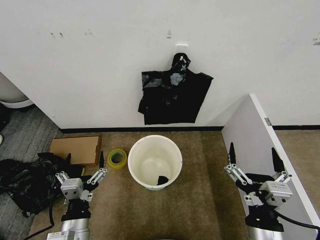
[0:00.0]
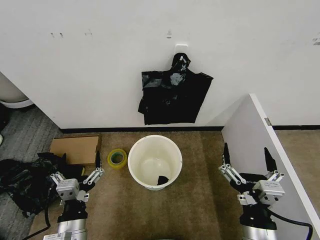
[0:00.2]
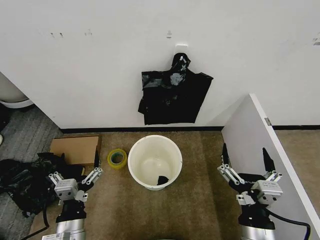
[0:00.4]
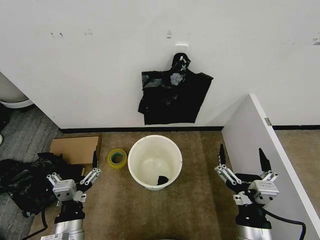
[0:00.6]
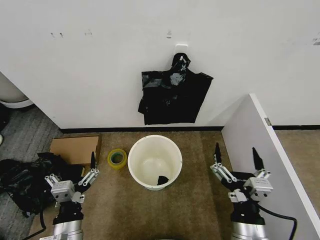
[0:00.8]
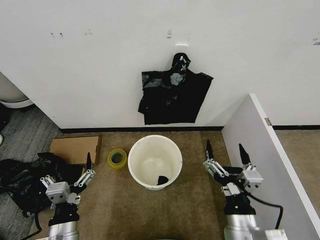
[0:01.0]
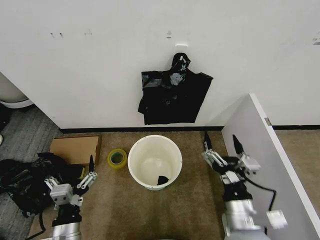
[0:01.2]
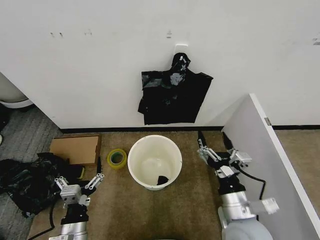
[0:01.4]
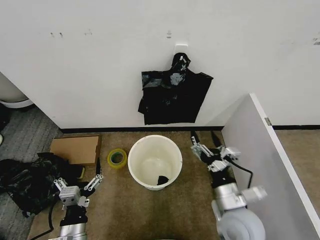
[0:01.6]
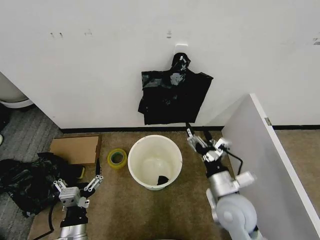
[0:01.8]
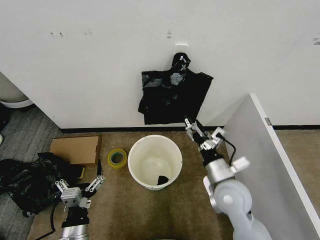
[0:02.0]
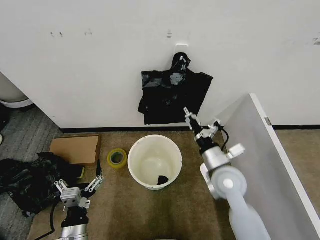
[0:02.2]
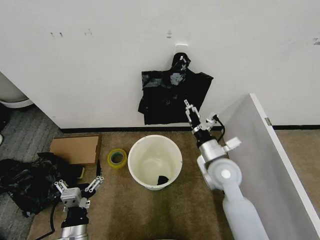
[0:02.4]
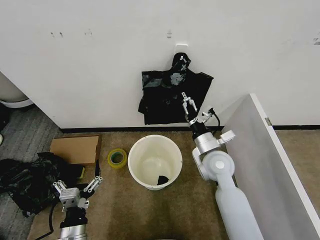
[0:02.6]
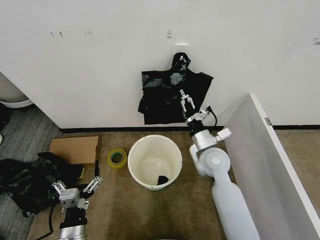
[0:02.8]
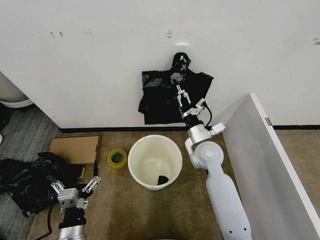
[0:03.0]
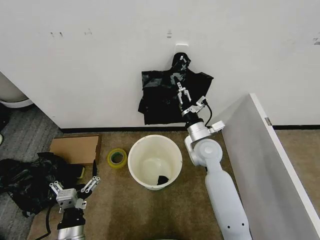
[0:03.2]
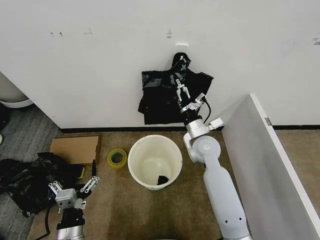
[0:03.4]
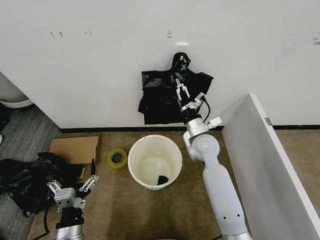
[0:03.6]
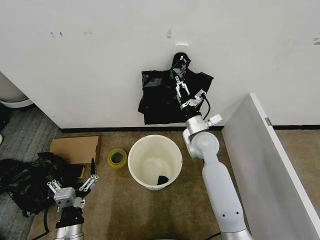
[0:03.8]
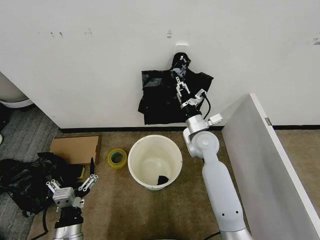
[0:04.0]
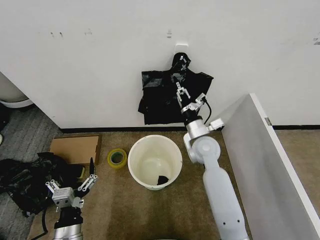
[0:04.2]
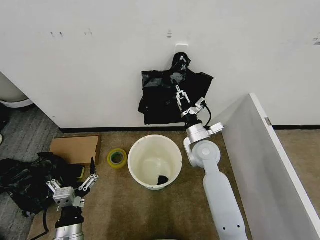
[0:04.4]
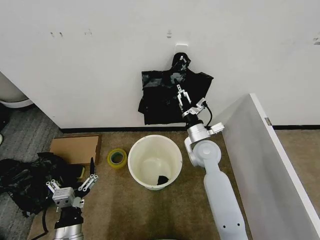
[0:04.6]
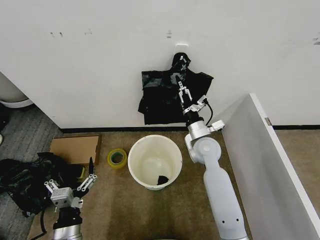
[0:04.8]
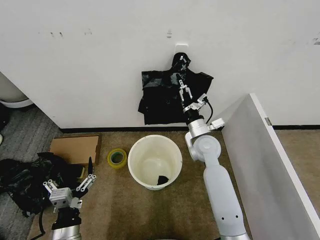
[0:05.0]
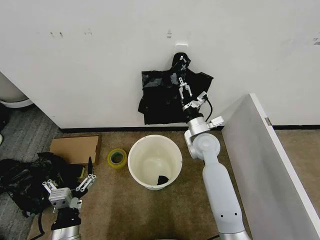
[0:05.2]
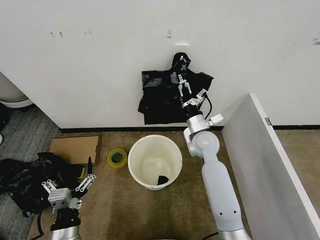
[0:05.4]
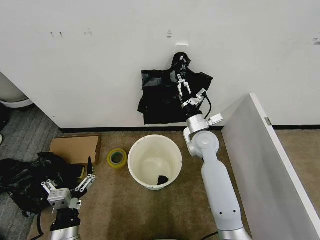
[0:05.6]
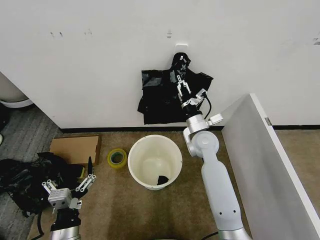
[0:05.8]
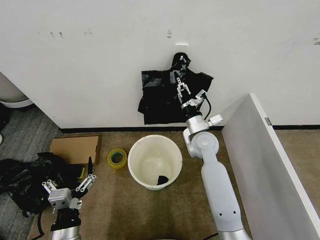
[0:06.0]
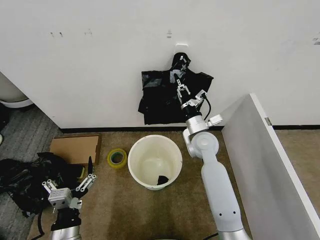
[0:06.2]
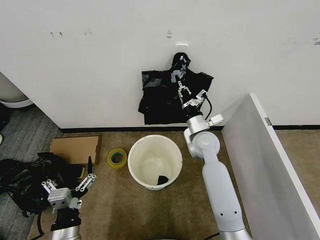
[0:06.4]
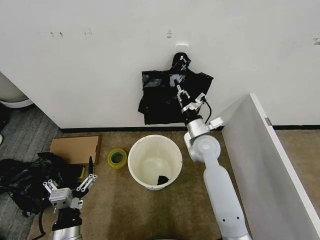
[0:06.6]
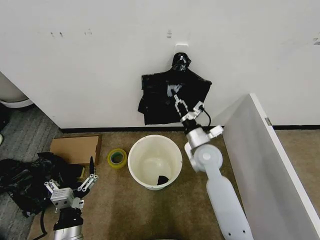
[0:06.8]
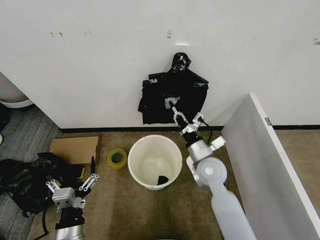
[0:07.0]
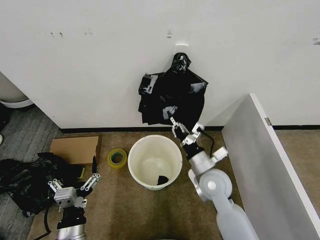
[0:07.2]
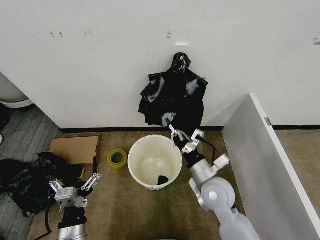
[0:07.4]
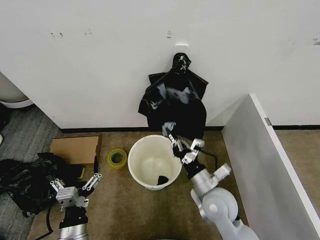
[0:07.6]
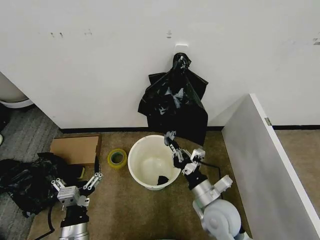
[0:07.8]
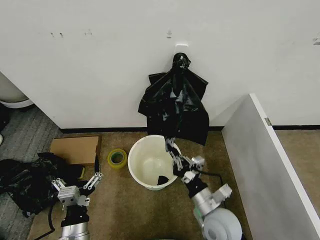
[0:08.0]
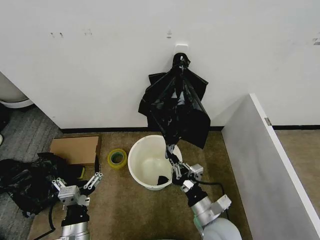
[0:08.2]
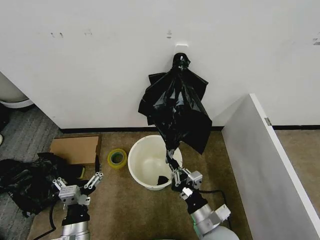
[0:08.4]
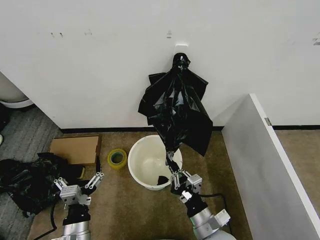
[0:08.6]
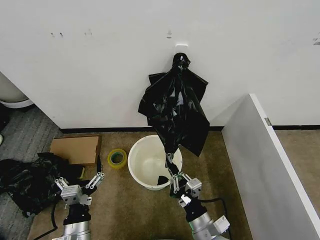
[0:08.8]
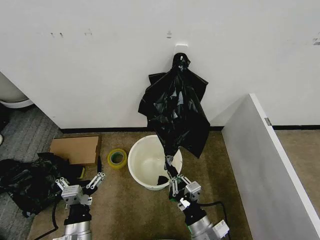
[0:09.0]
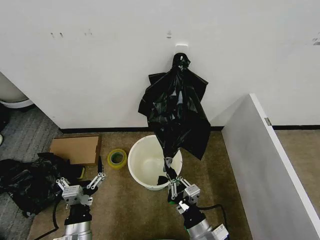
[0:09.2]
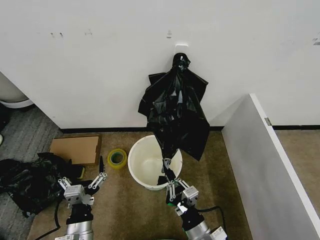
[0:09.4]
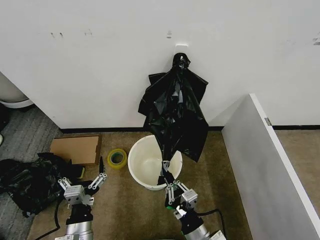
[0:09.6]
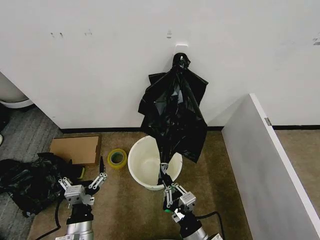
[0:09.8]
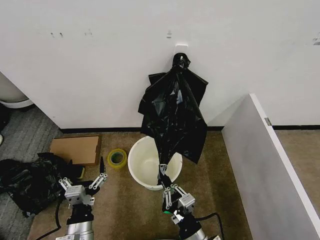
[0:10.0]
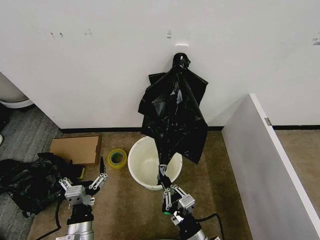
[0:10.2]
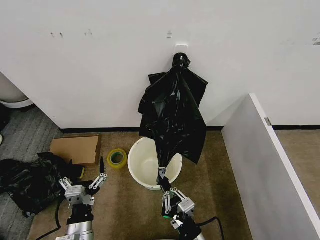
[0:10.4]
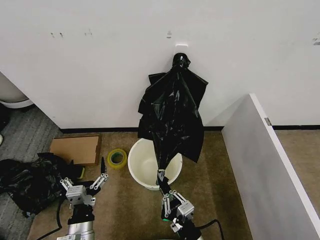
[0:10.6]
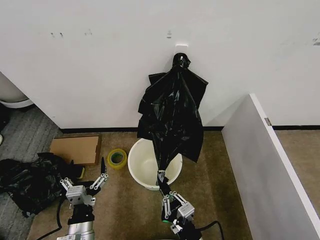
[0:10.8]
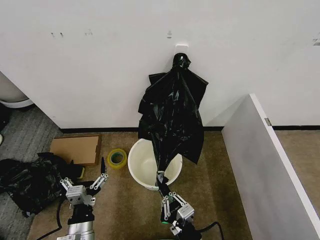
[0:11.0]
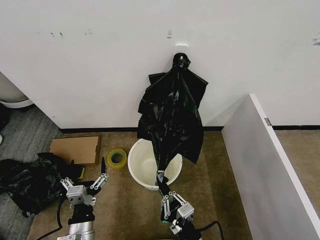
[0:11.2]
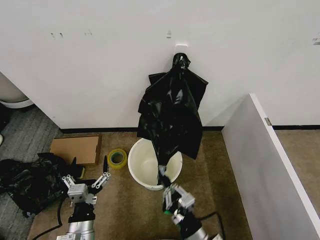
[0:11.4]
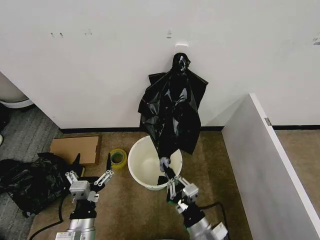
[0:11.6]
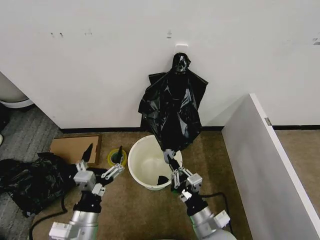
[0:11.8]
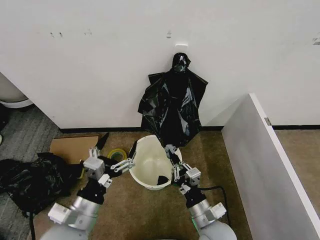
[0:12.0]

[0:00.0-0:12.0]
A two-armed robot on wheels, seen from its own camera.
Task of the whole recording: Place the garbage bag over the trash bin.
0:01.6 to 0:03.0: The right gripper shifts roughly 20 cm forward.
0:03.0 to 0:04.4: The right gripper closes up.
0:04.4 to 0:06.0: The right gripper opens, then closes once more.
0:06.0 to 0:07.6: The right gripper moves backward and downward, approximately 20 cm.
0:07.6 to 0:09.0: The right gripper heads backward and downward, covering about 15 cm.
0:09.0 to 0:10.4: The grippers move only a little.
0:10.4 to 0:12.0: The right gripper shifts approximately 10 cm forward. The left gripper goes roughly 10 cm upward.

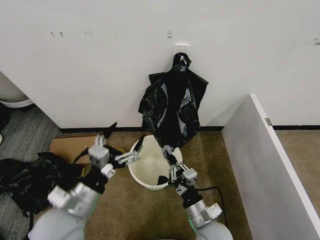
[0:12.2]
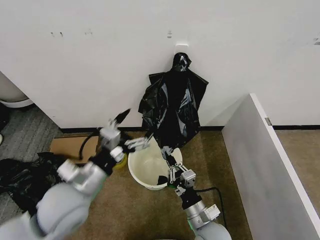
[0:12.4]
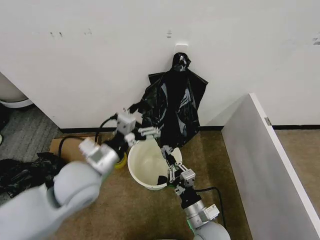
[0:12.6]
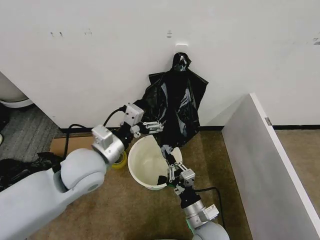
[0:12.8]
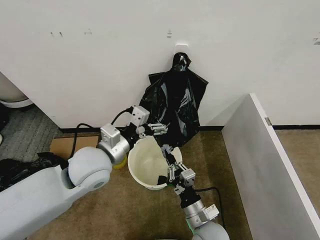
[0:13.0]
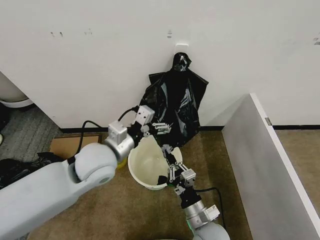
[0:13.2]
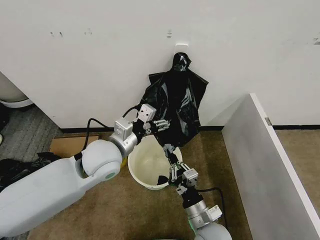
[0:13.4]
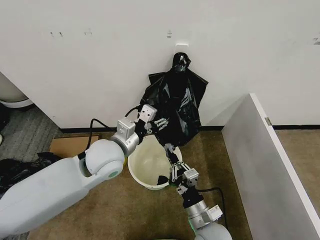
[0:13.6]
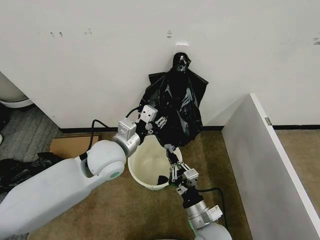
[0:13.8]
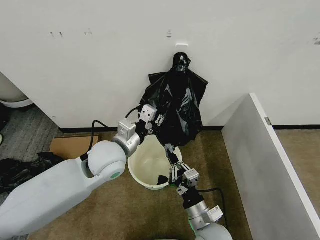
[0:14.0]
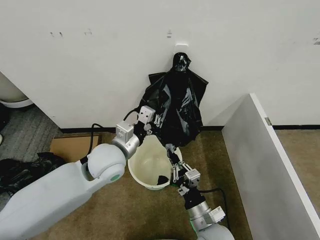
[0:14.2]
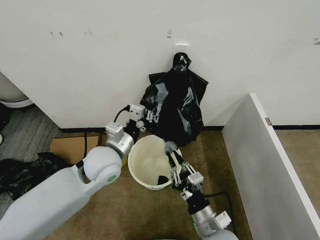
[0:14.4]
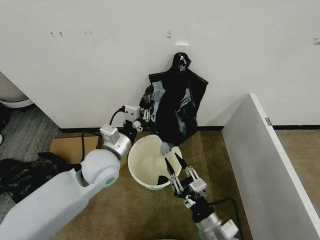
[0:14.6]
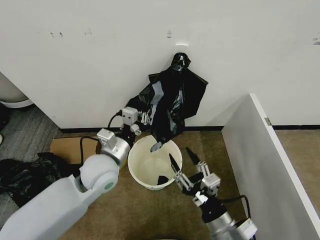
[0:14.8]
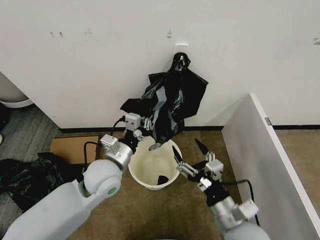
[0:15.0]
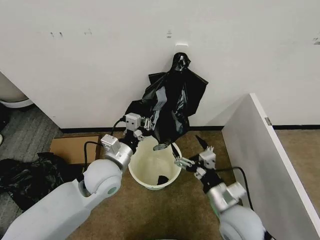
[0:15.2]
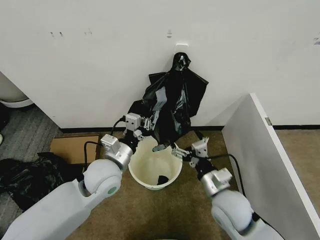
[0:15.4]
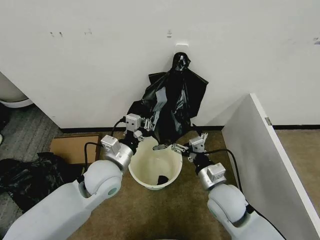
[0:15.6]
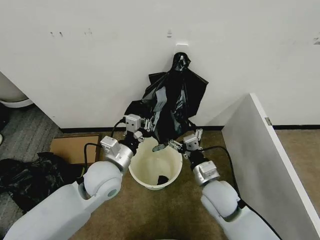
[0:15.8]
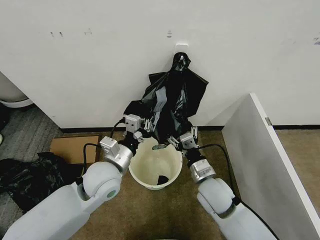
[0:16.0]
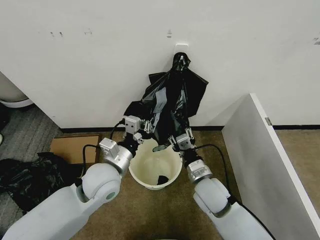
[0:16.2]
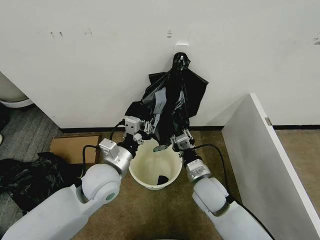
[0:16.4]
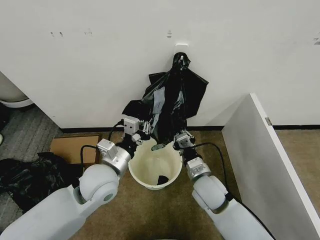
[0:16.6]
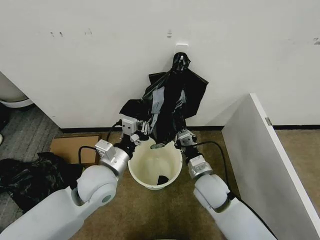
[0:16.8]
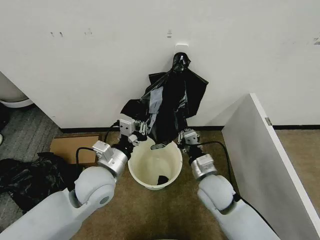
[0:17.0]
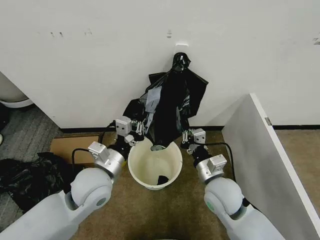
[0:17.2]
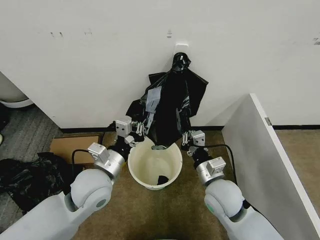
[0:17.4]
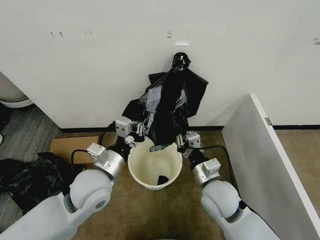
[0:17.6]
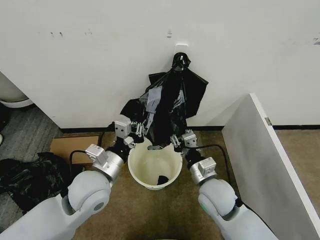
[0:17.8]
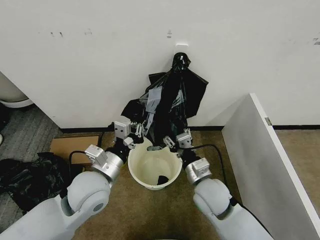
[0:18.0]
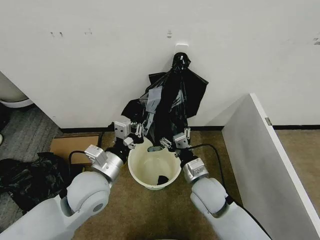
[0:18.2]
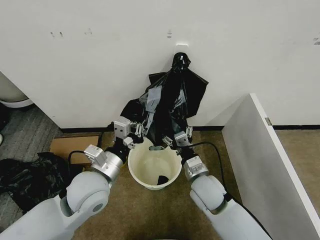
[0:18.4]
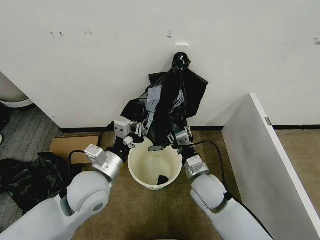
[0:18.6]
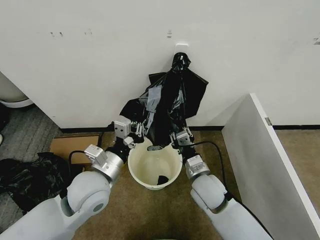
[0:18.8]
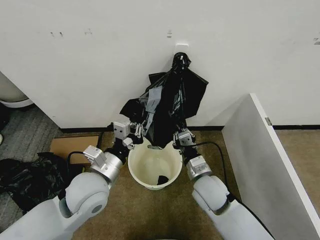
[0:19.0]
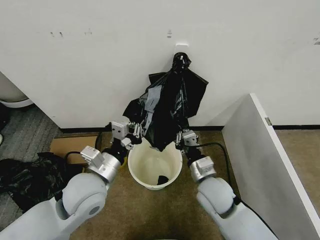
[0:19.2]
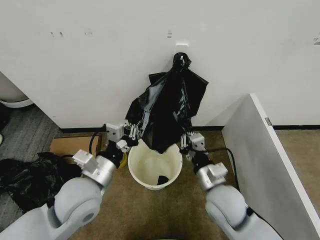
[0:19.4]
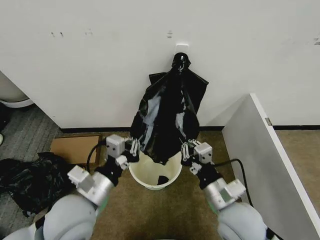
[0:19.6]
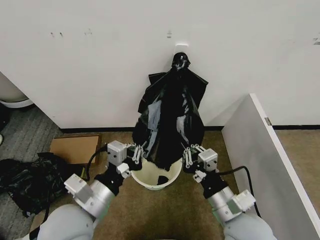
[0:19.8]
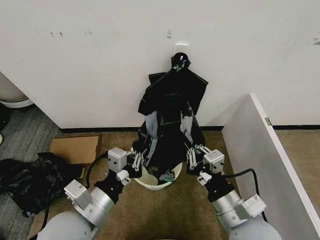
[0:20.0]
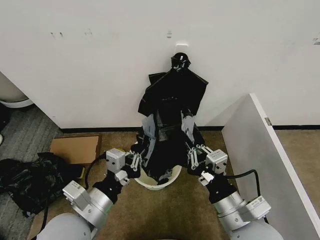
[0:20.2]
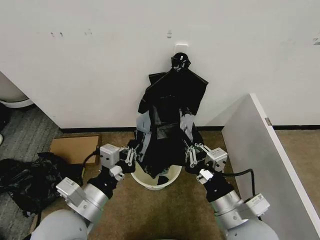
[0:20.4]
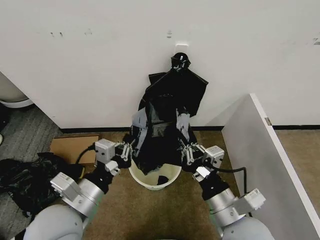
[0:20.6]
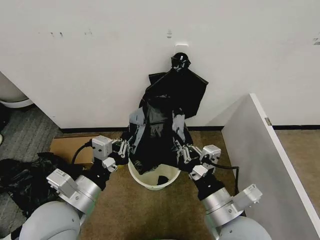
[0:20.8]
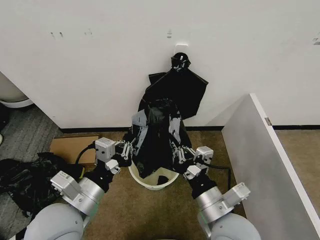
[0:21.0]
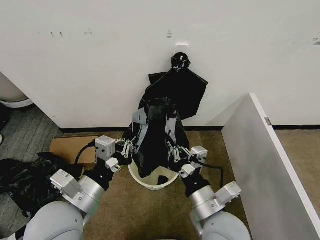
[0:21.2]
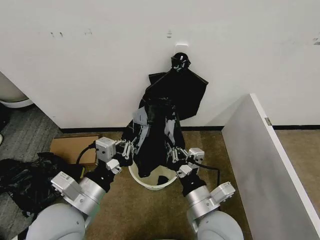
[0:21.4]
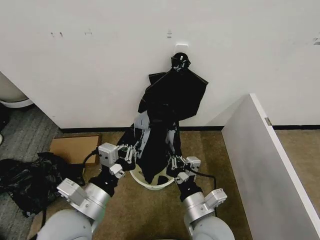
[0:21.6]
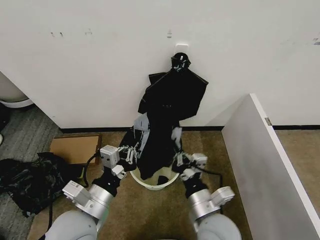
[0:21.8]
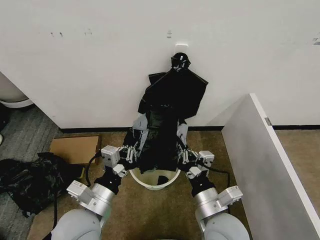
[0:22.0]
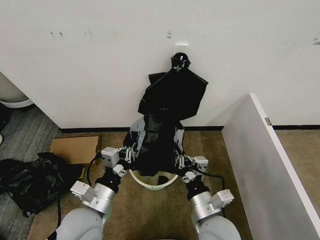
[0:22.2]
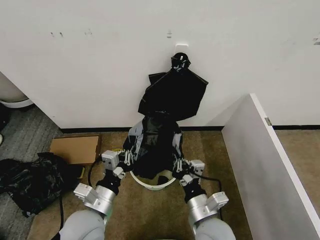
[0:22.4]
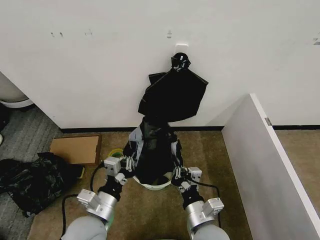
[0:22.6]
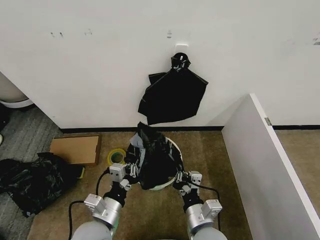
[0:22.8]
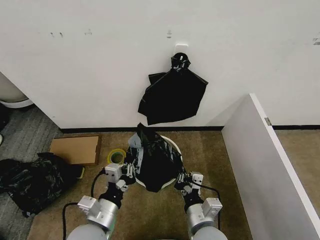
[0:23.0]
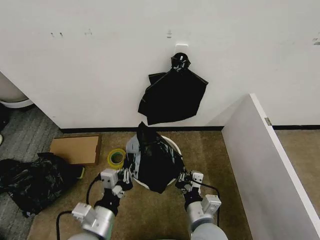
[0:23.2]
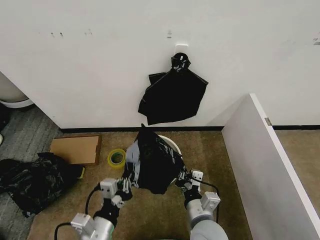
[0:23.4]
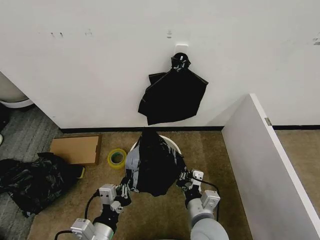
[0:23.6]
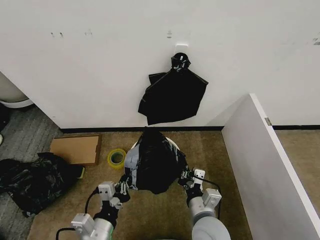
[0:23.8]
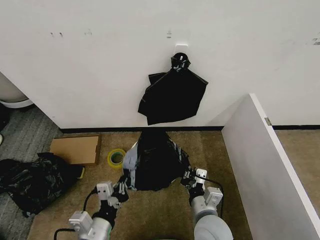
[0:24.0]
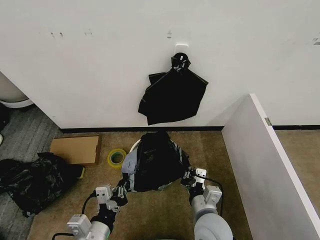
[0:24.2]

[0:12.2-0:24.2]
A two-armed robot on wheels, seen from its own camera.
Task of the whole recording: Place the garbage bag over the trash bin.
0:12.2 to 0:13.8: The left gripper heads forward, to the right and upward, covering roughly 15 cm, and closes up.
0:13.8 to 0:15.2: The left gripper shifts about 5 cm downward, while the right gripper is displaced upward and to the right by about 10 cm, and opens its fingers.
0:15.2 to 0:16.6: The right gripper heads forward and to the left, covering roughly 10 cm, and closes.
0:16.6 to 0:18.2: The right gripper opens its fingers.
0:18.2 to 0:19.8: Both grippers travel together backward, approximately 10 cm. The right gripper closes its fingers.
0:21.2 to 0:22.6: The grippers both shift downward by roughly 10 cm.
0:22.6 to 0:24.2: The left gripper is displaced backward by roughly 5 cm.
